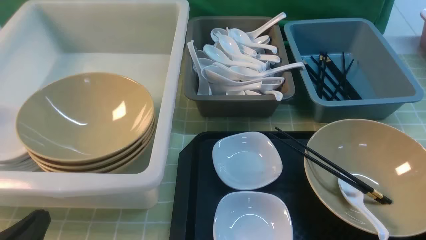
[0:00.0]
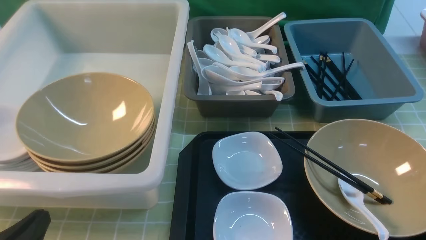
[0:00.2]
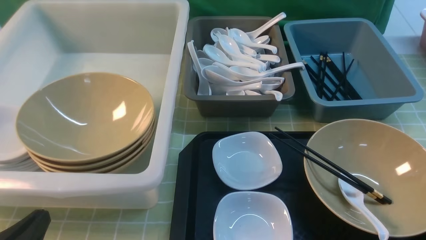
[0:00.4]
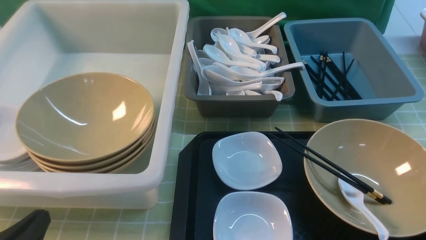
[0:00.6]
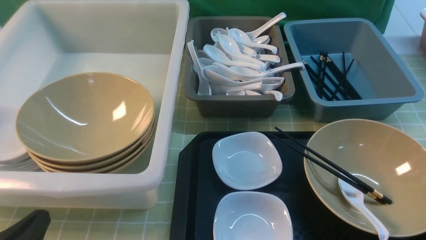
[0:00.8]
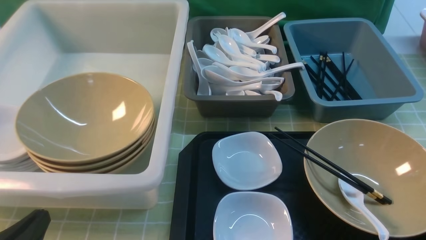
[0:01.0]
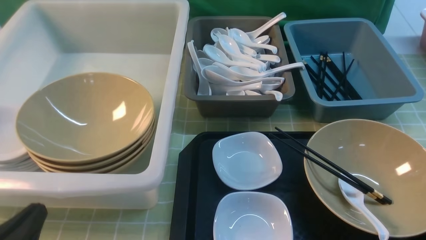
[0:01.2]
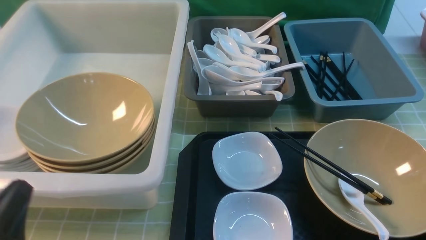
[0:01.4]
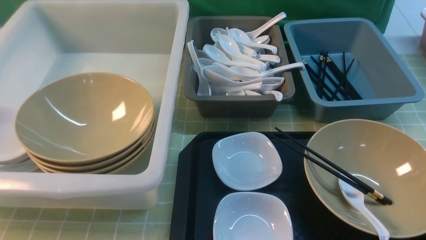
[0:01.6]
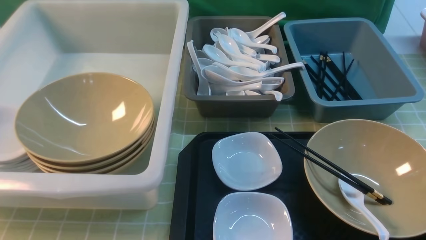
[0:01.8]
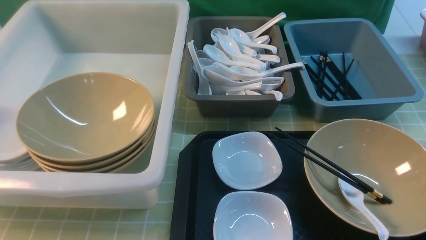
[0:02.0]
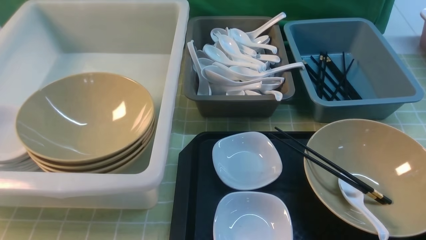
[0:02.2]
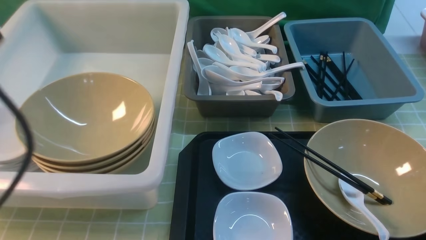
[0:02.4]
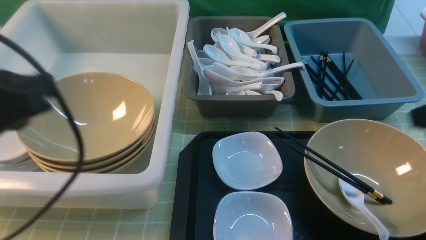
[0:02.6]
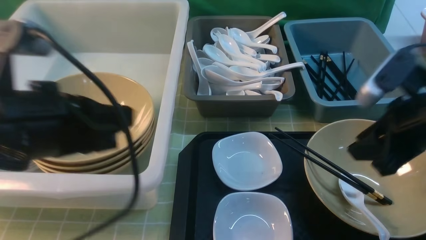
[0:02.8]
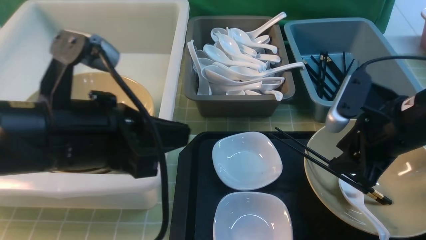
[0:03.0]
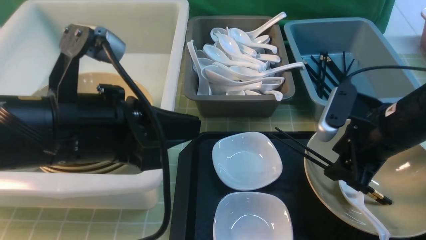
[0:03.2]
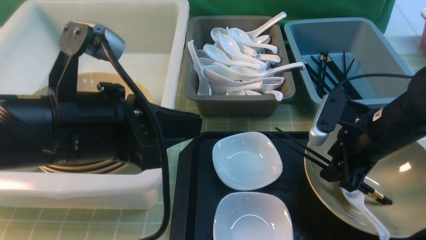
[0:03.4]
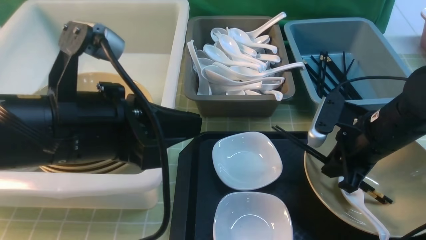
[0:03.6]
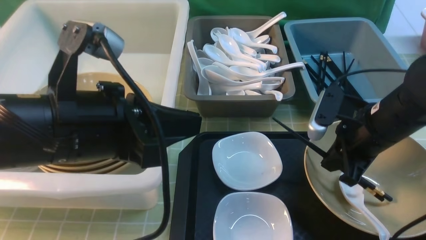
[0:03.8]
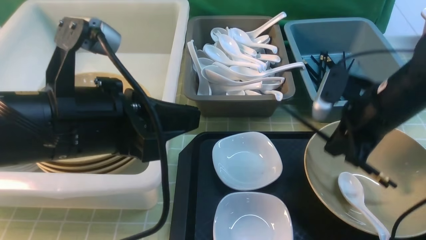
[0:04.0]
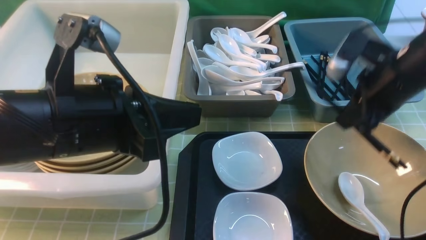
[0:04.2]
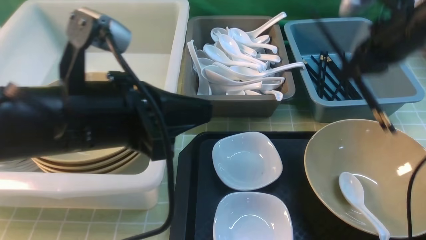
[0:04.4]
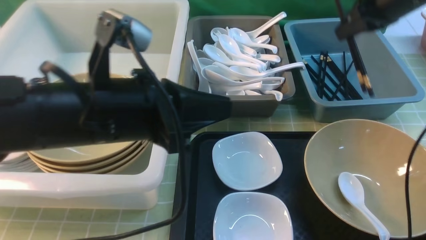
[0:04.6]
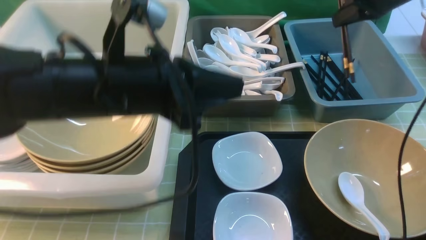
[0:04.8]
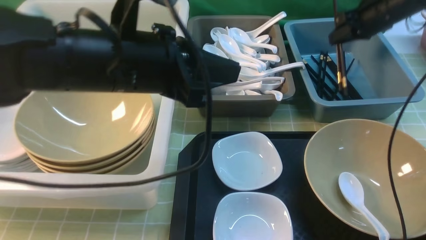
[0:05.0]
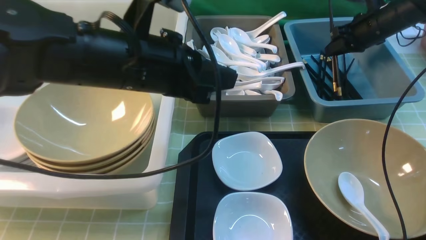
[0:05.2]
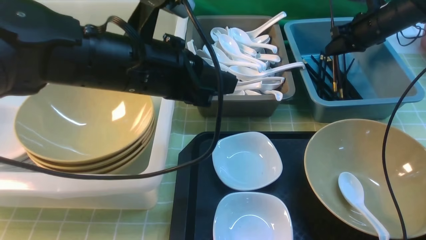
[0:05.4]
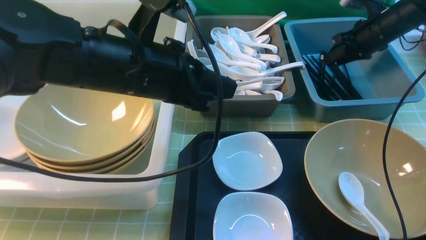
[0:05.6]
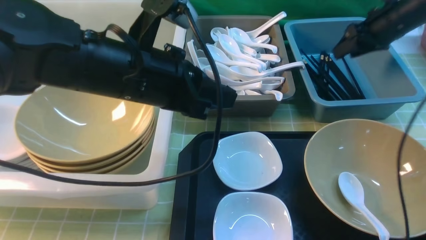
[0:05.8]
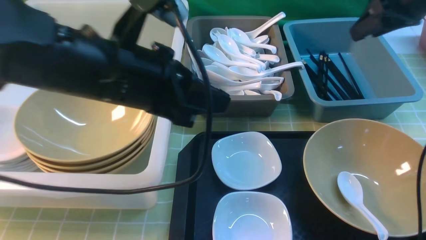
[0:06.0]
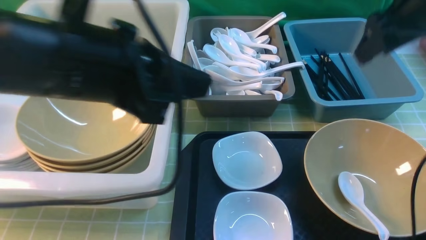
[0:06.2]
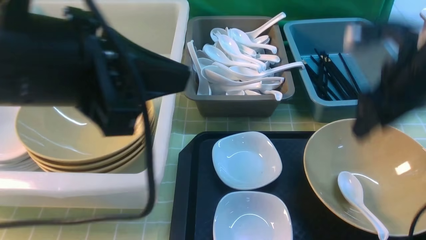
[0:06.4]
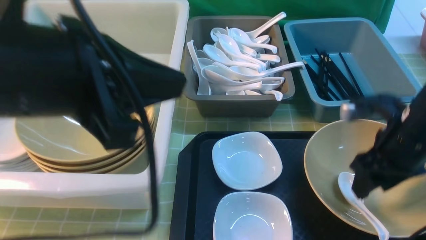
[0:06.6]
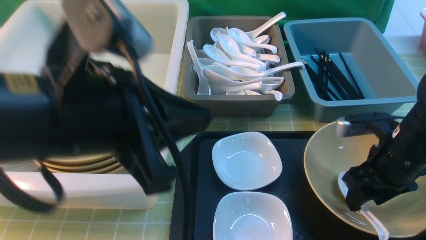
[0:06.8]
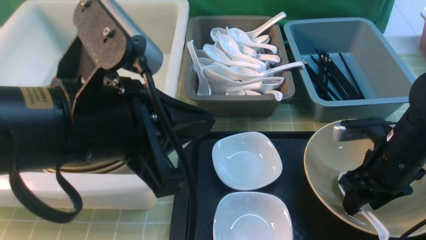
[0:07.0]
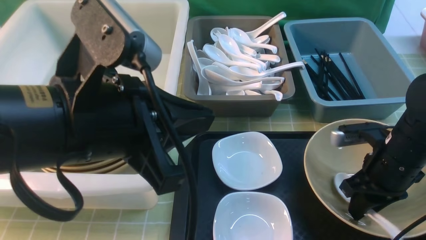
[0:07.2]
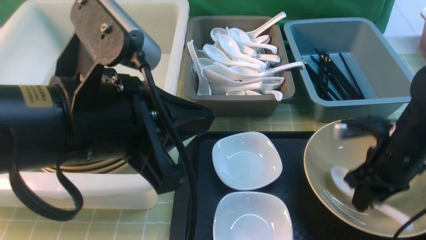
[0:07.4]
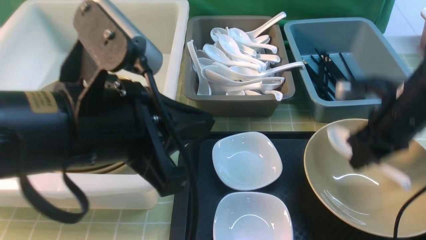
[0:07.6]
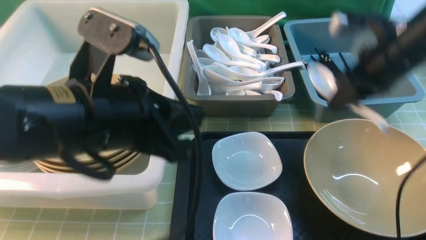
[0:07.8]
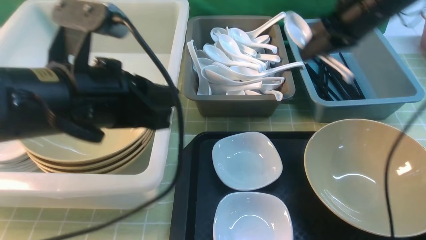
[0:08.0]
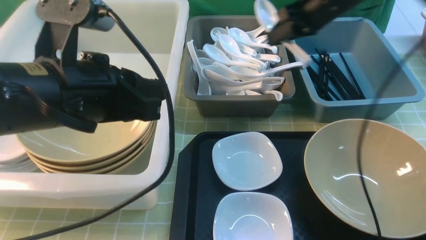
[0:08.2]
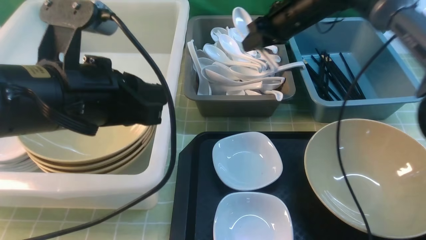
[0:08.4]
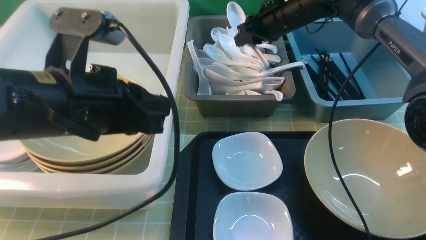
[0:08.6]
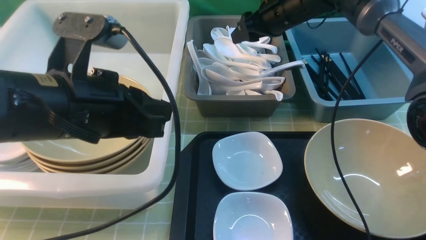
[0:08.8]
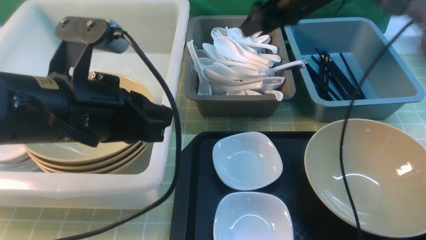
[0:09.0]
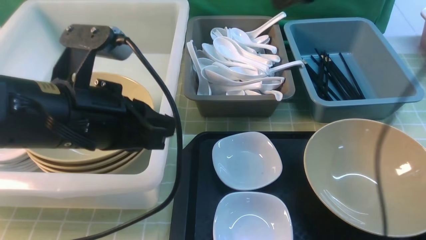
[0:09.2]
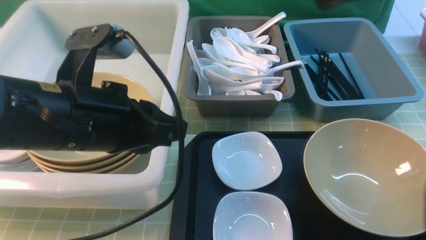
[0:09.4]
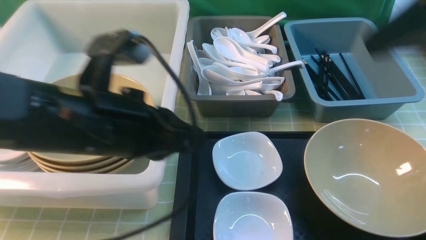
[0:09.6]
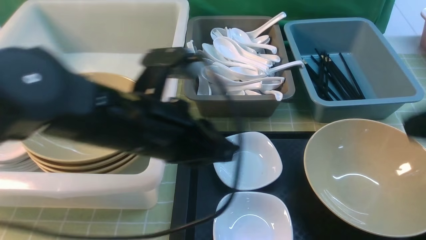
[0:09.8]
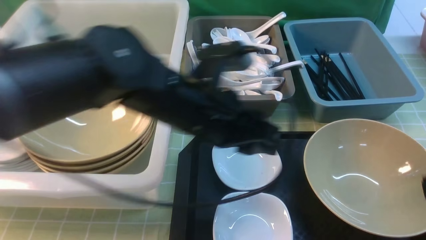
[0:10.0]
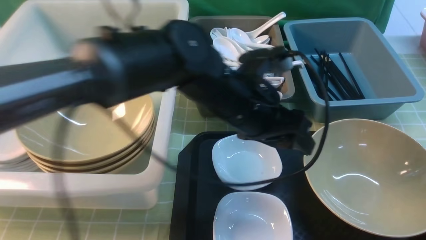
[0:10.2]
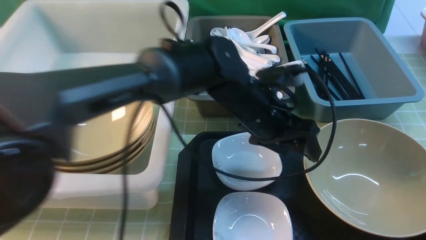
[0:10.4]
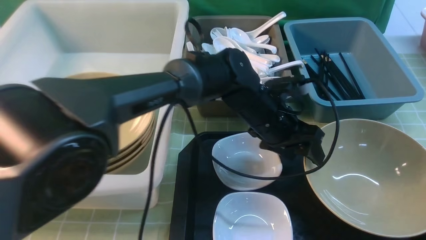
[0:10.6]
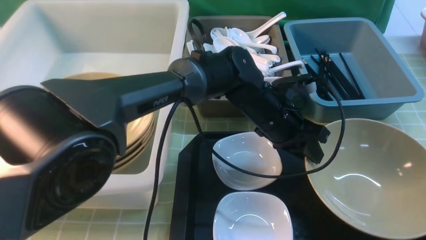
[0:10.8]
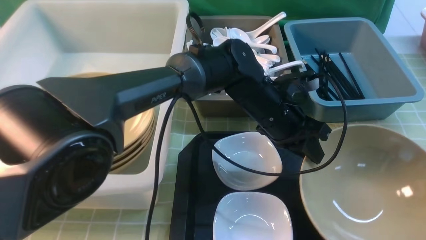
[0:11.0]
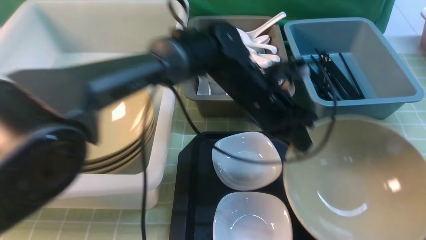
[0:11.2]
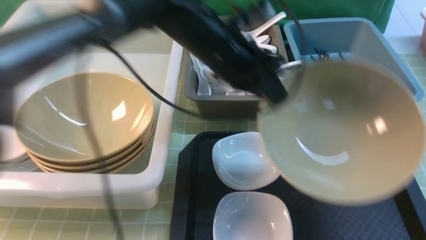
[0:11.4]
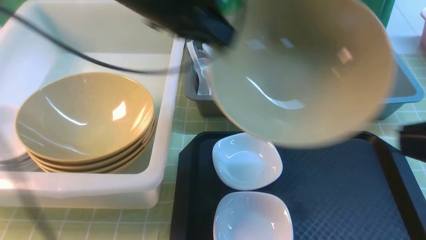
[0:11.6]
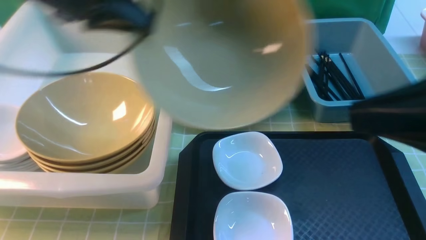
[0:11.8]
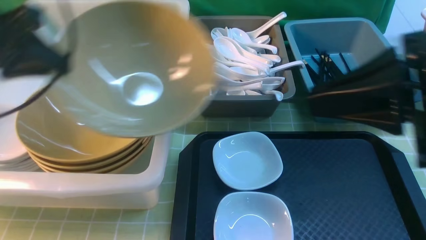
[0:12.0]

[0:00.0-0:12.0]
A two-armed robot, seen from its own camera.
Task of the whole recording: on green table put chopsticks spoon bowls plates into blue grey white boxes.
Step, 0:00.0 to 0:04.0: use the right arm to grab the chopsticks.
Step, 0:04.2 to 0:05.4: use the right arm to put the chopsticks into the small storage box on the right.
Step, 0:05.8 to 0:07.4: use the right arm to grab the soup spoon in the middle.
Step, 0:07.6 to 0:08.6: use the right arm to put the soup spoon into the small storage box in the middle.
Step, 0:08.8 to 0:11.2: use the left arm to grab the yellow noodle bowl on the left.
0:00.0 to 0:01.6: The left gripper is displaced upward by approximately 5 cm.
0:01.6 to 0:03.0: The left gripper goes roughly 20 cm forward, to the right and upward; the right gripper shifts approximately 20 cm forward.
0:03.0 to 0:04.4: The right gripper heads forward and upward, covering approximately 15 cm, and closes up.
0:04.4 to 0:06.0: The right gripper goes forward and returns, roughly 15 cm each way, and opens its fingers.
0:06.0 to 0:07.6: The right gripper moves downward and backward, approximately 15 cm, and closes its fingers. Meanwhile the left gripper shifts about 5 cm backward.
0:07.6 to 0:09.0: The right gripper travels forward, upward and to the left by some 20 cm, and opens its fingers. The left gripper changes place by roughly 5 cm.
0:09.0 to 0:10.4: The right gripper is displaced backward by about 40 cm, and closes its fingers, while the left gripper shifts some 25 cm to the right, forward and downward, and opens.
0:10.4 to 0:12.0: The right gripper goes approximately 15 cm forward, to the left and upward. The left gripper travels to the left and upward by approximately 40 cm, and closes its fingers.

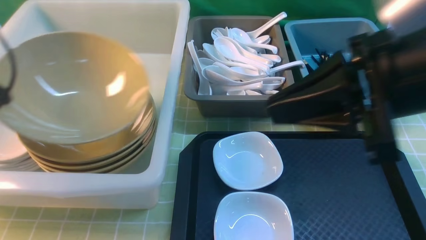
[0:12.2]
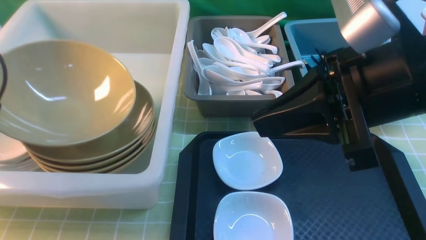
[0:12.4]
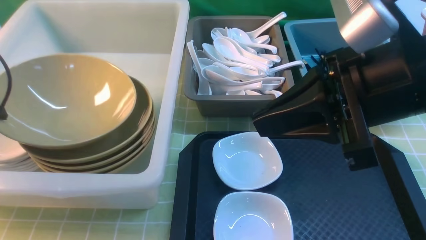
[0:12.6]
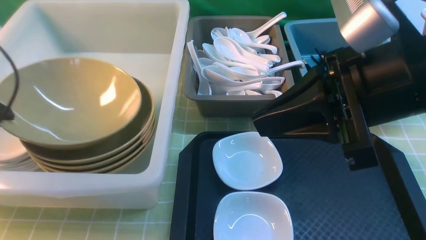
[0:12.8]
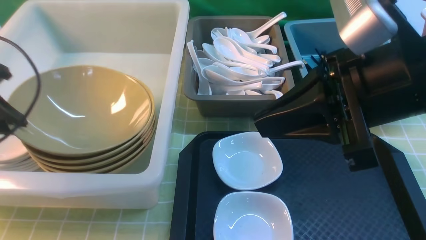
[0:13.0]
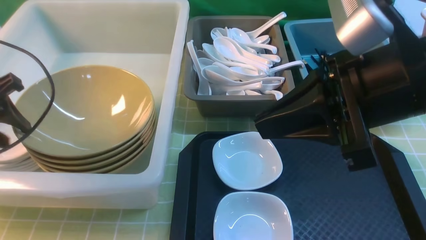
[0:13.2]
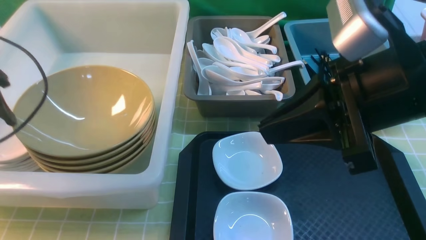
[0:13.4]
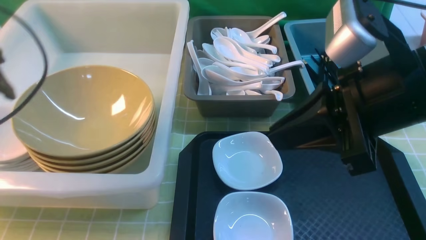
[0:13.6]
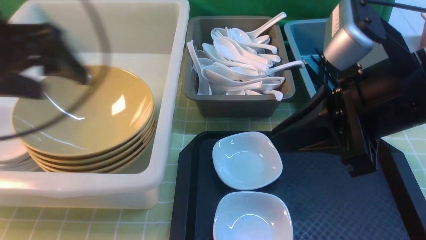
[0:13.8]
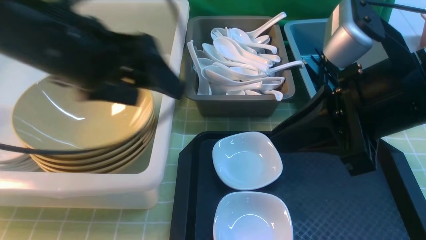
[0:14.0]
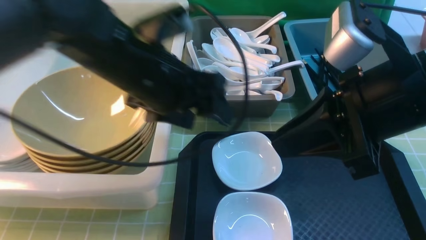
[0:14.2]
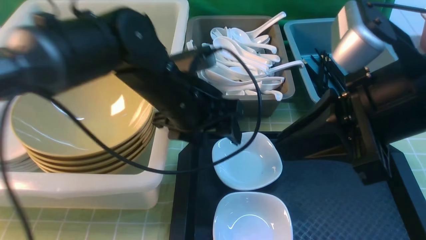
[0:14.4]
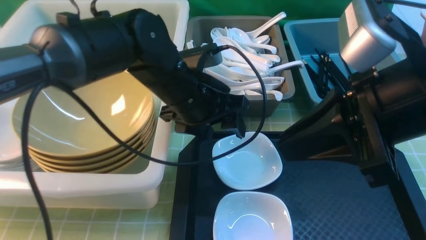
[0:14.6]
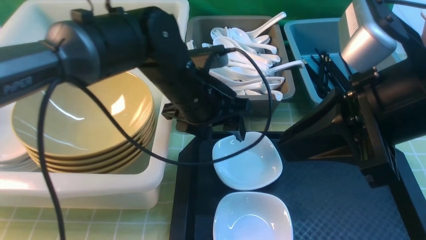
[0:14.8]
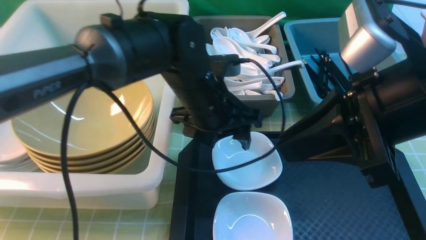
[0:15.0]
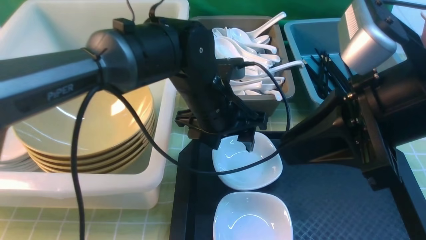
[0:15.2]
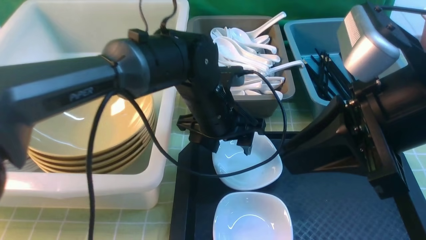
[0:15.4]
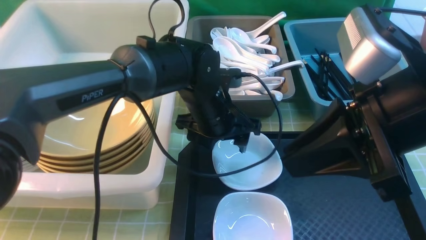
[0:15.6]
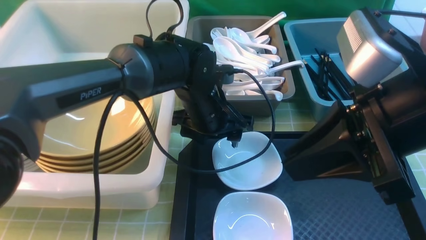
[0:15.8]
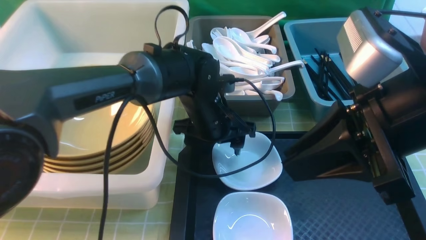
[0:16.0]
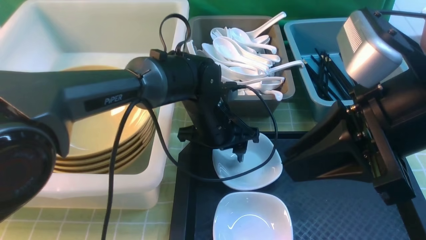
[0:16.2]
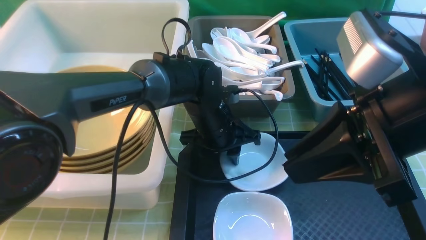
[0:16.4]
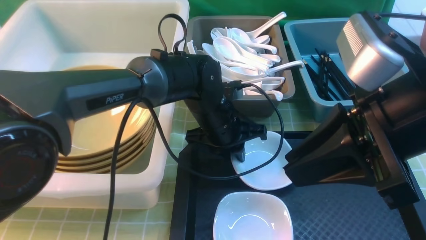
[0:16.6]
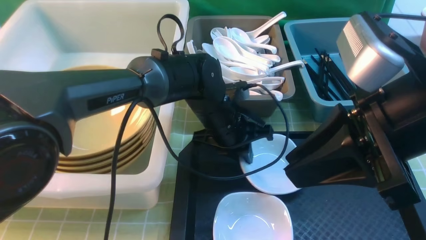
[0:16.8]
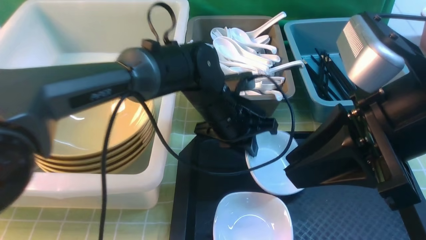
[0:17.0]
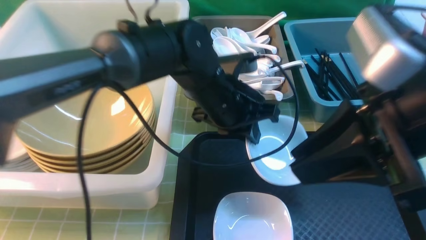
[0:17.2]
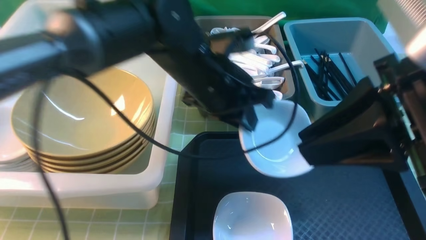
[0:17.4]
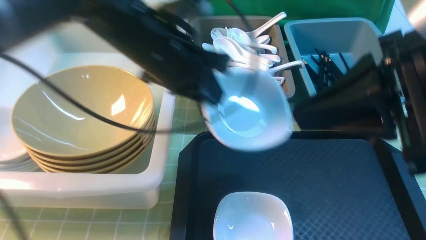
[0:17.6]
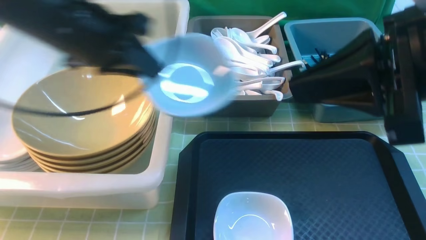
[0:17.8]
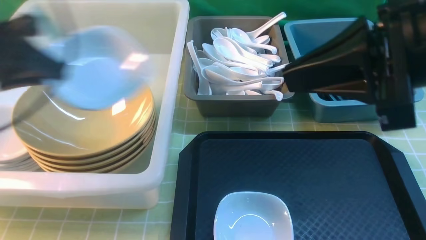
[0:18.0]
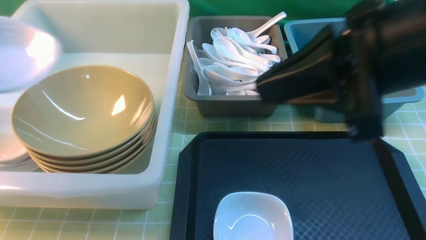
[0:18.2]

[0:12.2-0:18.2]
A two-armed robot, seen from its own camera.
Task of the whole recording: on green table put chopsticks spoon bowls plates into blue grey white boxes.
Step, 0:12.2 to 0:13.4: use the left arm to put the noodle bowl into the large storage box on the left.
Step, 0:13.6 to 0:17.2: use the left arm to grab the plate.
0:12.2 to 0:13.8: The left gripper shifts about 15 cm to the right, and opens its fingers.
0:13.8 to 0:15.2: The left gripper is displaced to the right and downward by roughly 25 cm.
0:15.2 to 0:16.6: The left gripper goes some 5 cm downward, and closes up.
0:16.6 to 0:18.2: The right gripper shifts by about 5 cm. The left gripper is displaced to the left and upward by approximately 40 cm.
